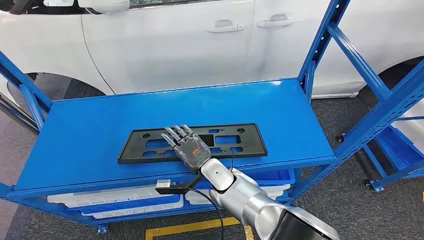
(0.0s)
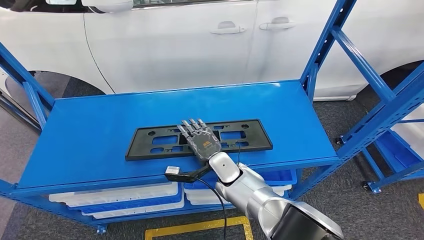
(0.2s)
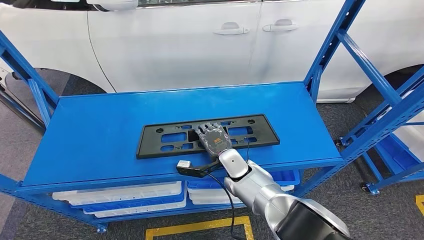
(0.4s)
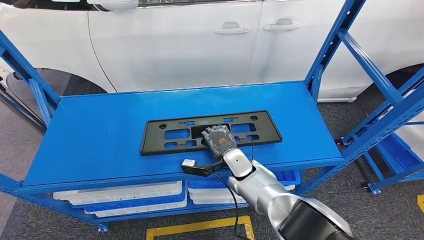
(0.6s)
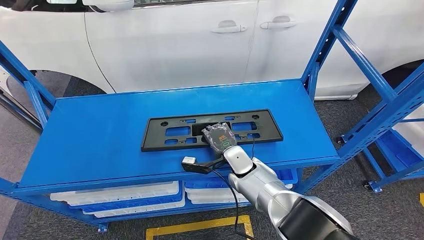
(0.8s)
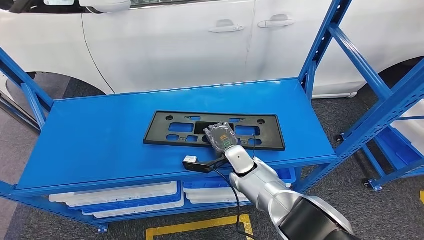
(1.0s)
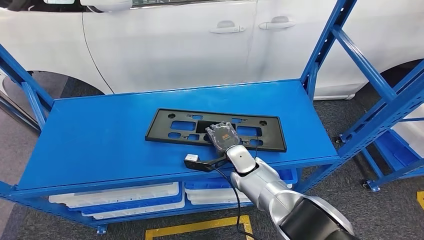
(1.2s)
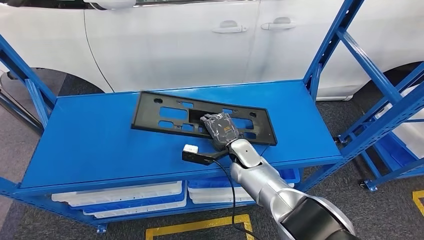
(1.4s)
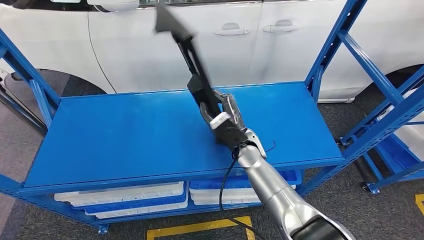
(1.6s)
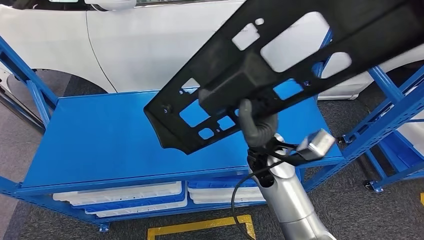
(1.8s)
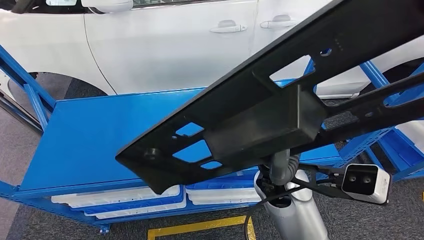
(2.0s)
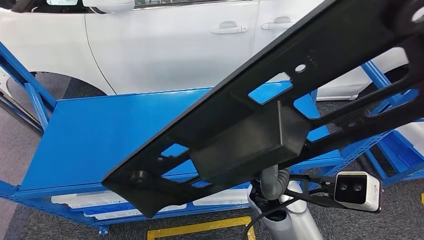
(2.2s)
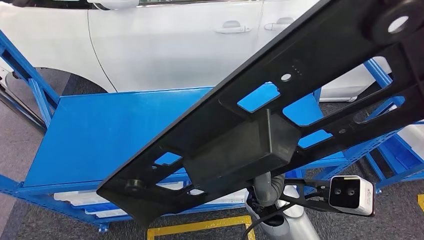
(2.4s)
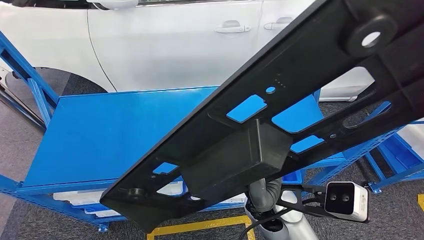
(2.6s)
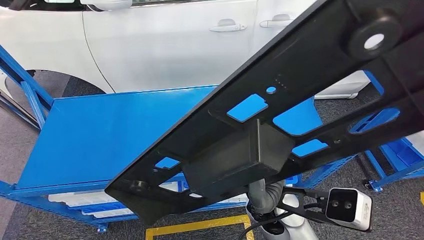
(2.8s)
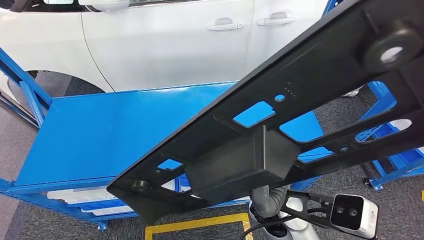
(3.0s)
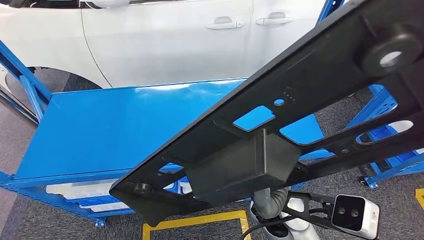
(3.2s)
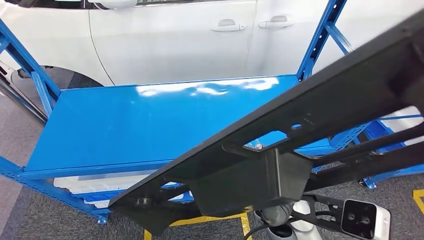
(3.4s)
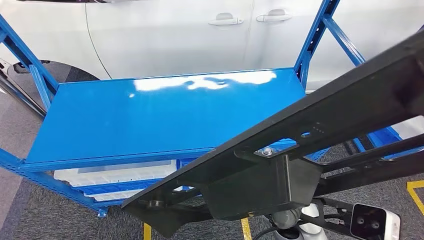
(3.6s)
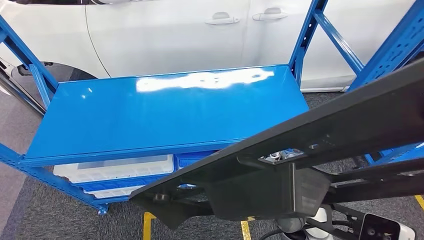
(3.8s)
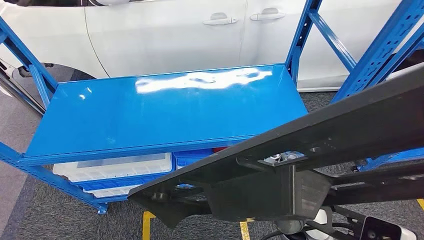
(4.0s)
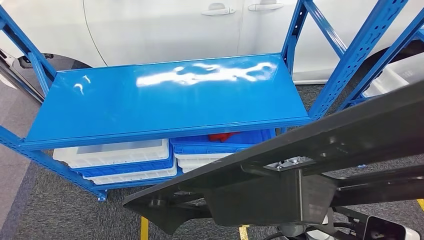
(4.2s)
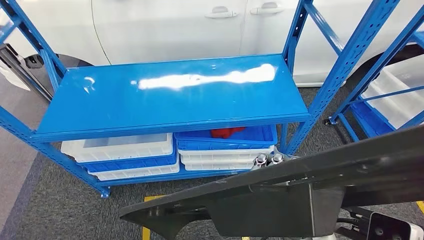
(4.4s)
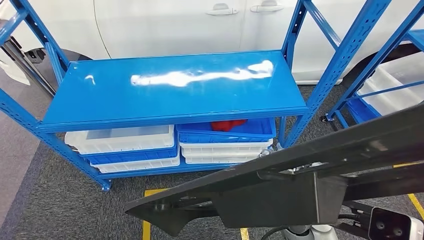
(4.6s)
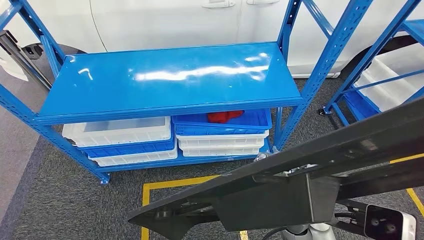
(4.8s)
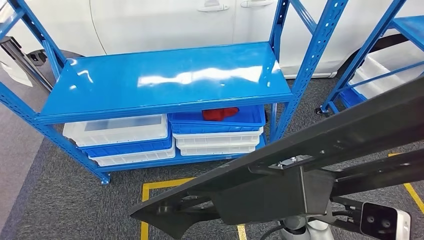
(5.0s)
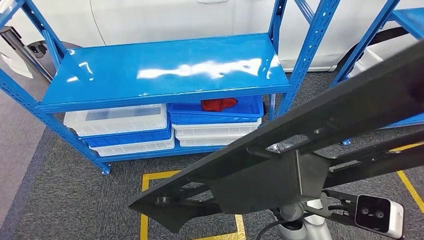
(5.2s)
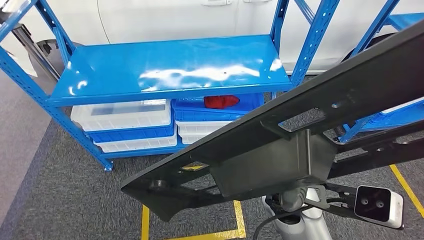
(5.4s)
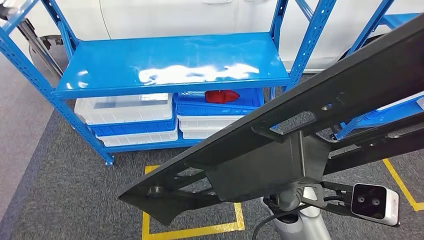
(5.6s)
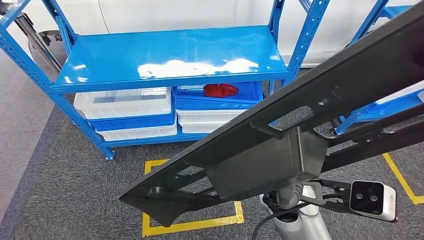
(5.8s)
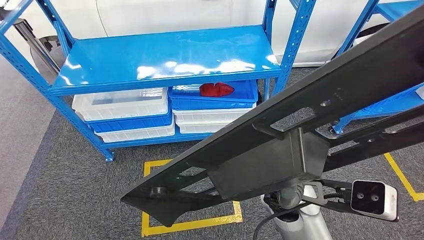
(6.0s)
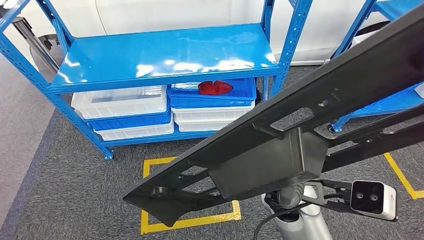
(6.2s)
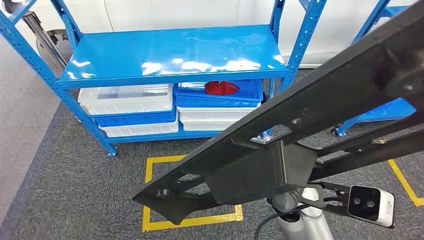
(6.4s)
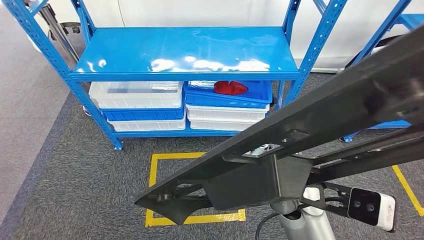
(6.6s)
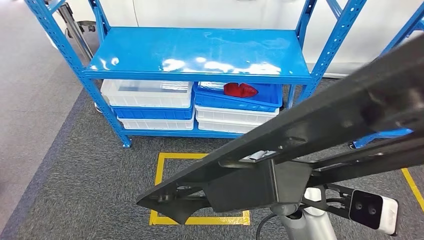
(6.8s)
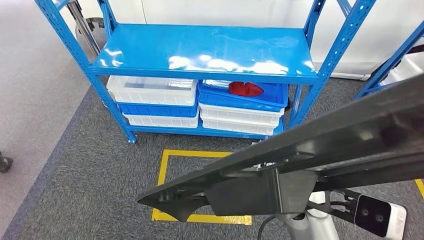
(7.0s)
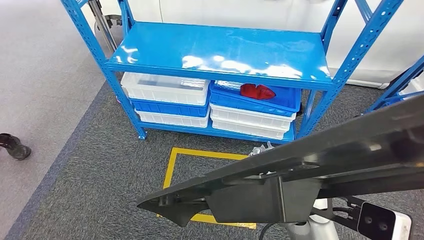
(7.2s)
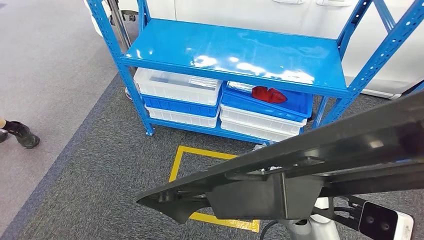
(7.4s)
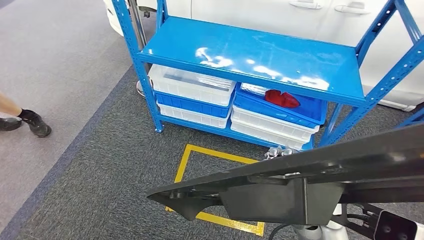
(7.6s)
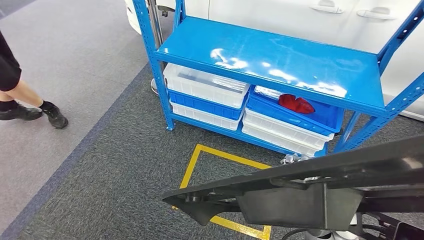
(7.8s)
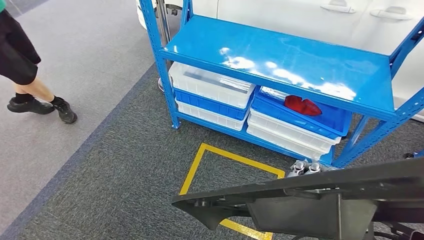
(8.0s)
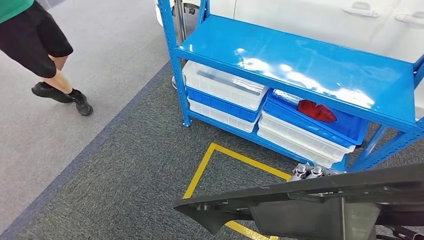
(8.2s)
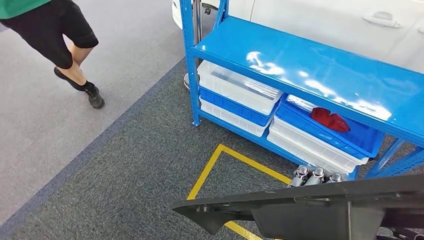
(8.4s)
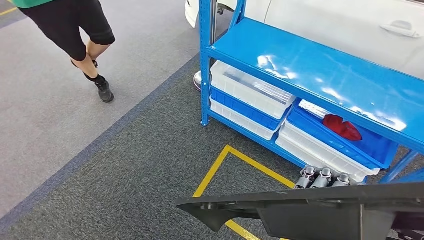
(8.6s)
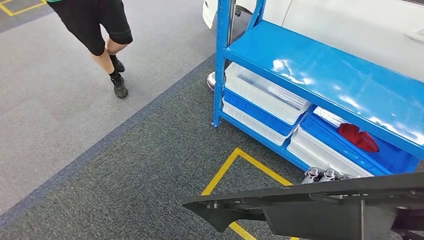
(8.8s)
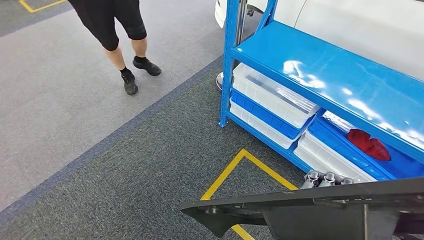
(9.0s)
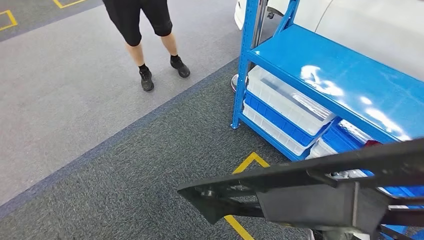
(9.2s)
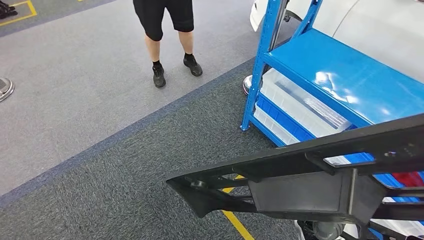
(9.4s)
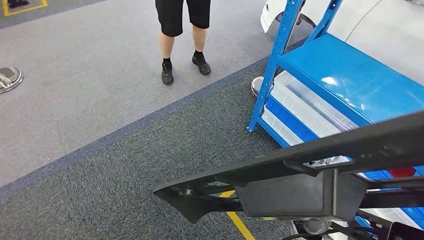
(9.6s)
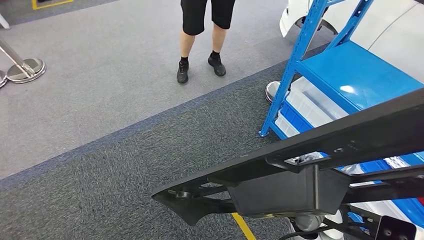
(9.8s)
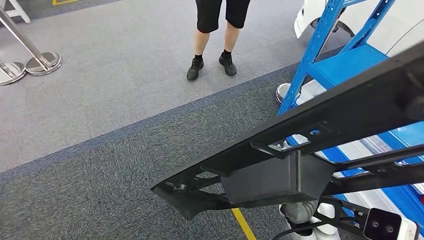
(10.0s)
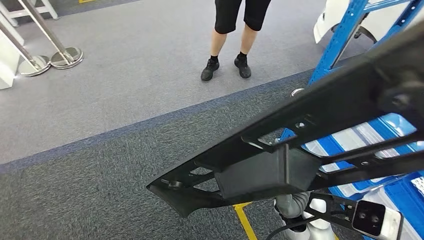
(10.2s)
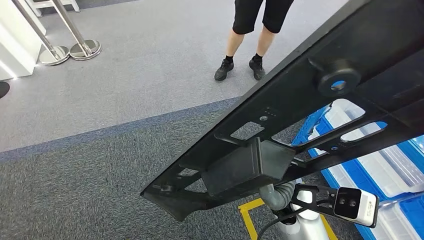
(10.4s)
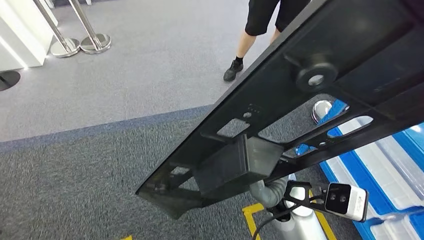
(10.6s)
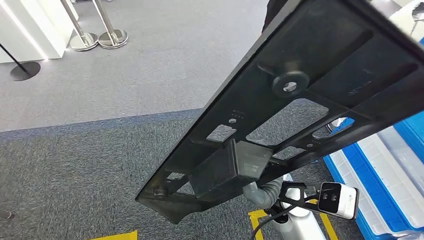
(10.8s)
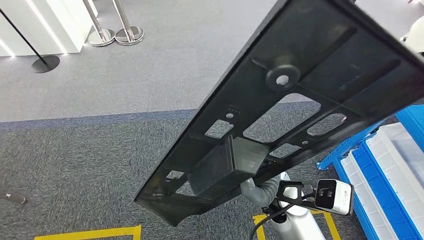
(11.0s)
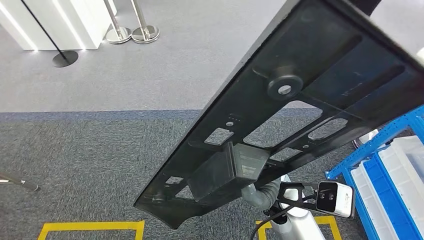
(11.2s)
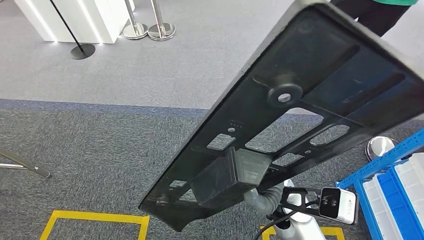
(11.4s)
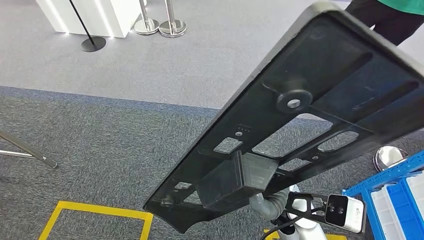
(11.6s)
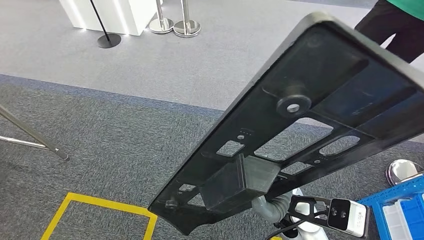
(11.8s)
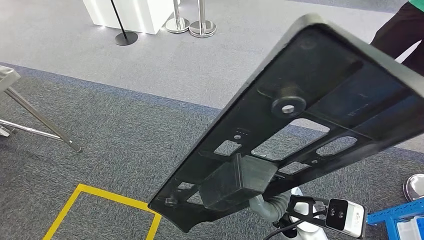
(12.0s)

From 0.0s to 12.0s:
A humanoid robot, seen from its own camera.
Step, from 0.0s to 2.6s: Pick up the large material from the shelf.

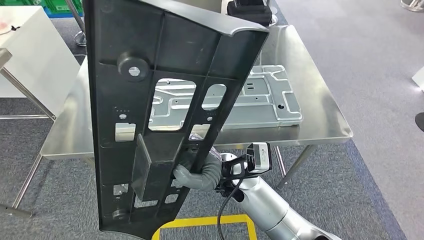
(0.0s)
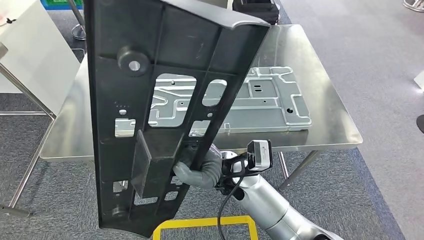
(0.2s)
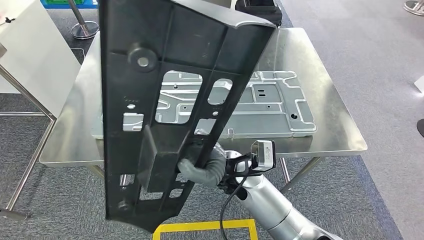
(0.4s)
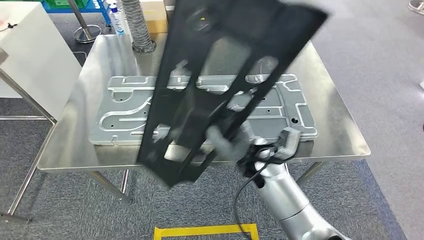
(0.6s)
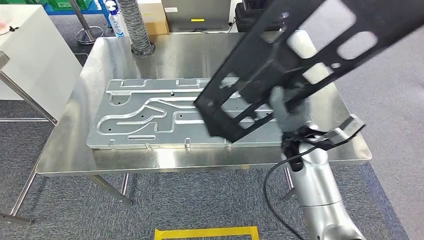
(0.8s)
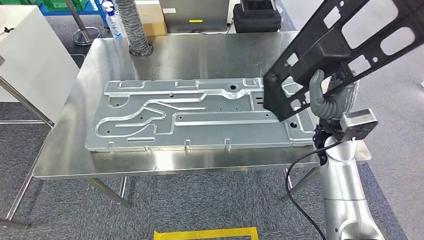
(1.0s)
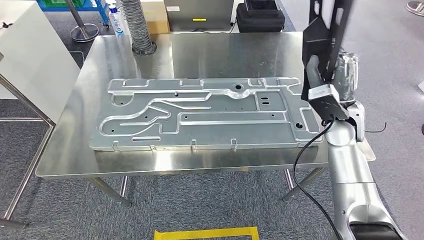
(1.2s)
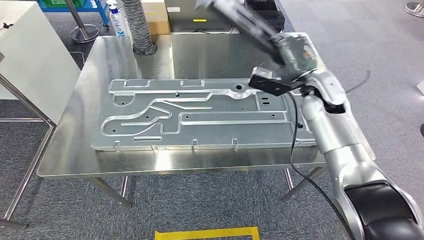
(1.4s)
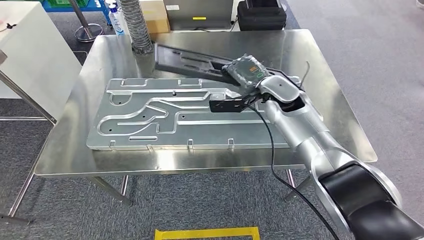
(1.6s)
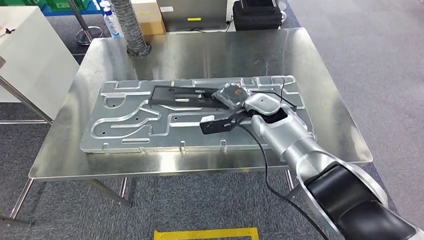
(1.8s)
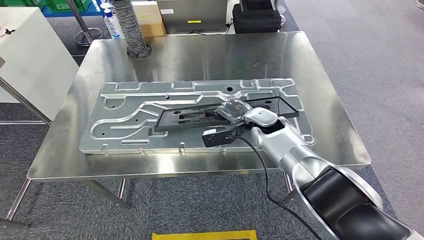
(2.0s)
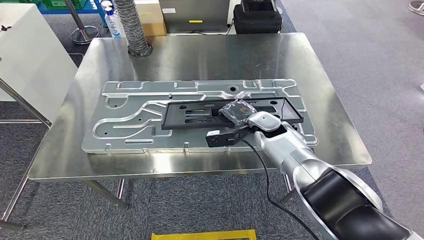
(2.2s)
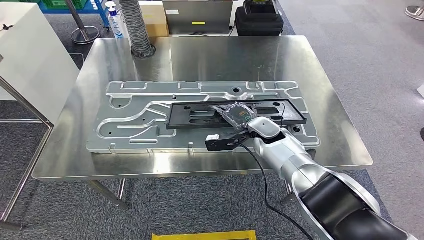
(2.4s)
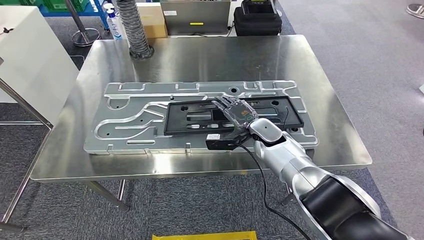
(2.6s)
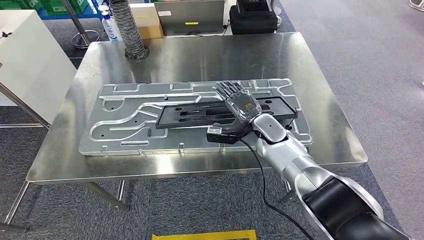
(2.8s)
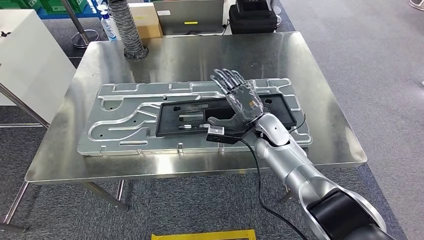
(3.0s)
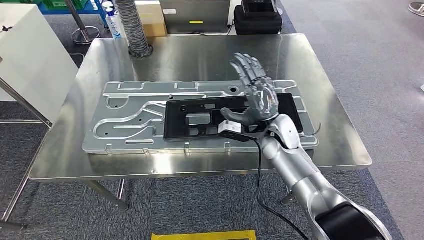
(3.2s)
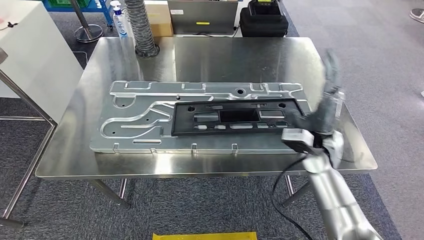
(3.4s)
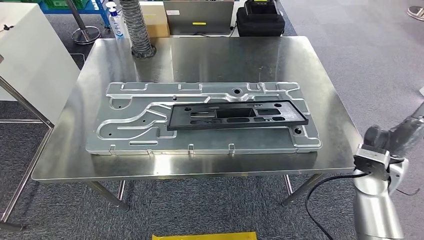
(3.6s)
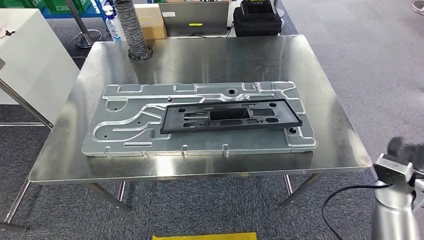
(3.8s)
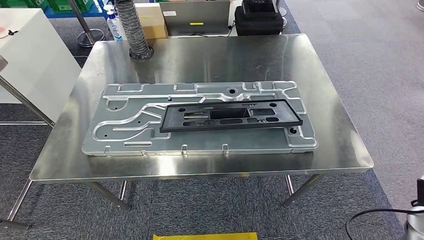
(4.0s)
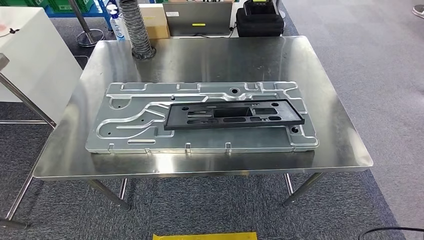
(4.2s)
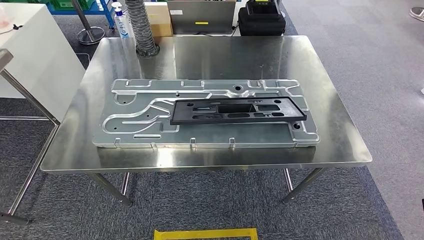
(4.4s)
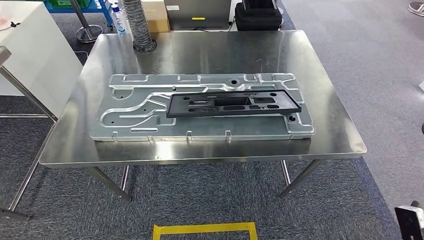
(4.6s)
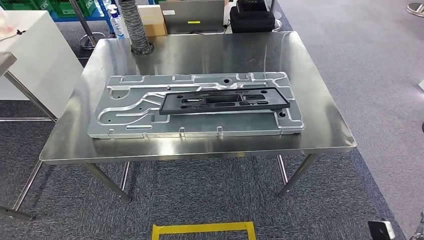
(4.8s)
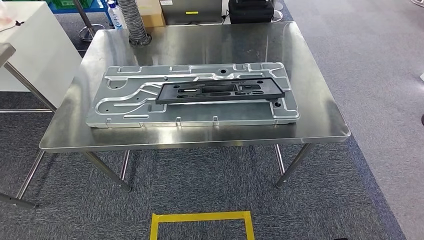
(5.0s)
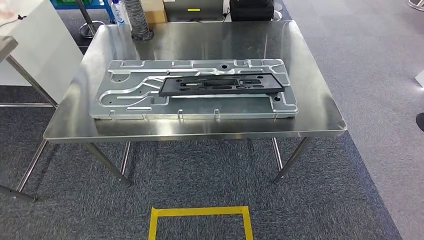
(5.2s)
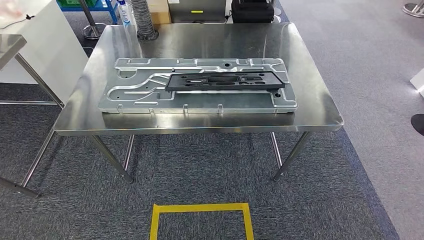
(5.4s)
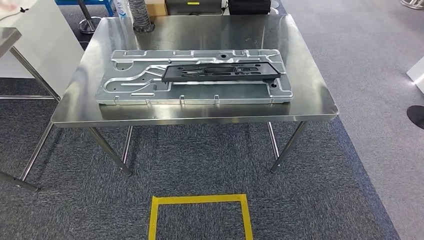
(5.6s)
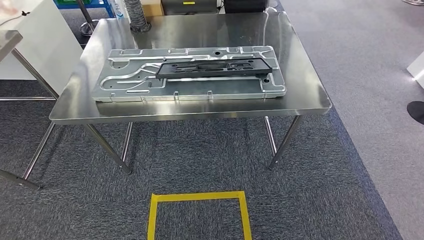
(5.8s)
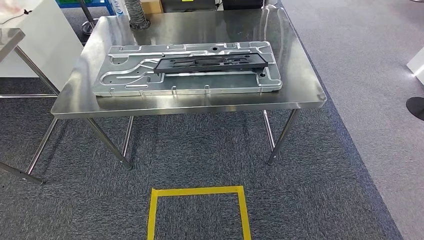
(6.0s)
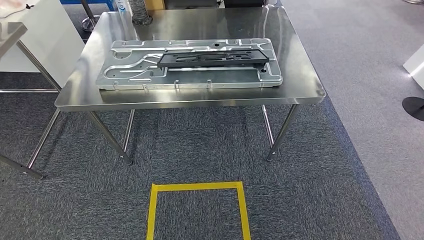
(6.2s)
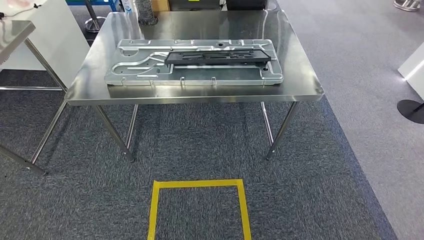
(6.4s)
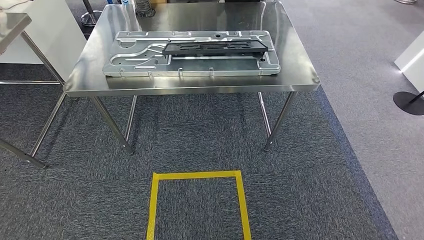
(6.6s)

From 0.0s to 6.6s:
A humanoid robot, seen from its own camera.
Step, from 1.4s to 3.2s: Insert the large material into the corresponding slot on the workbench.
